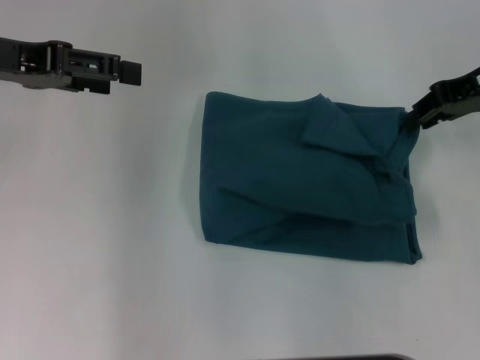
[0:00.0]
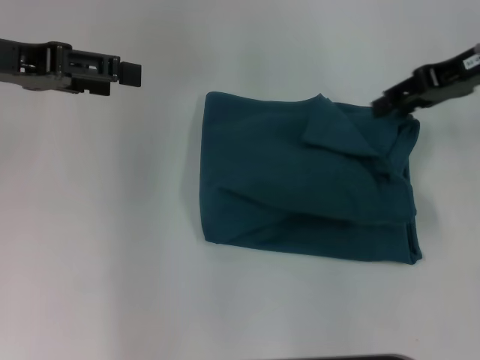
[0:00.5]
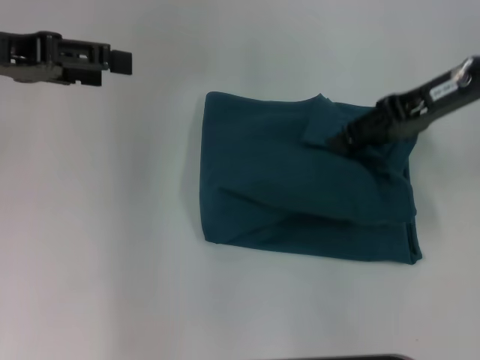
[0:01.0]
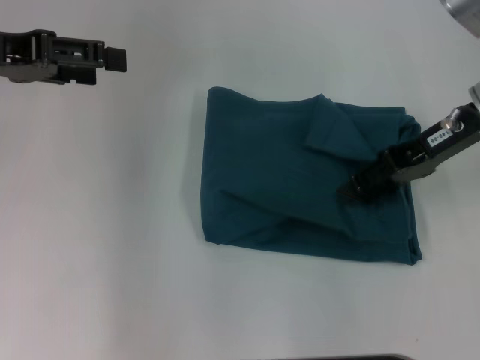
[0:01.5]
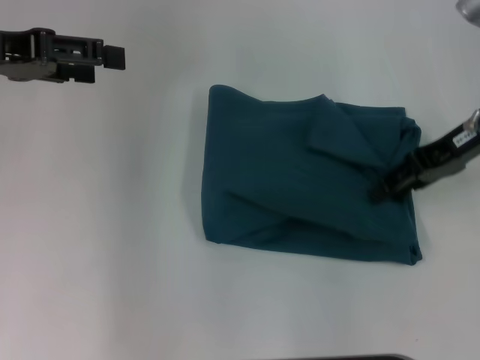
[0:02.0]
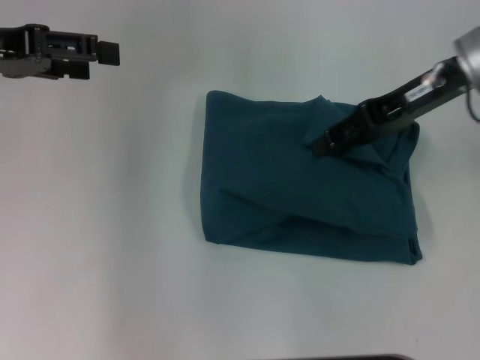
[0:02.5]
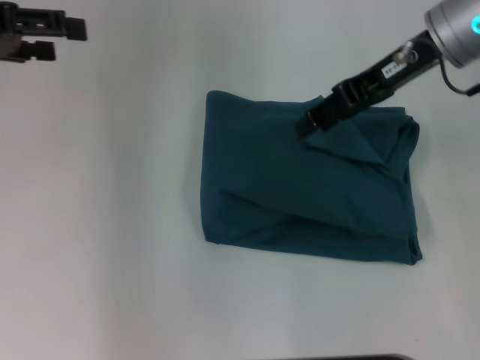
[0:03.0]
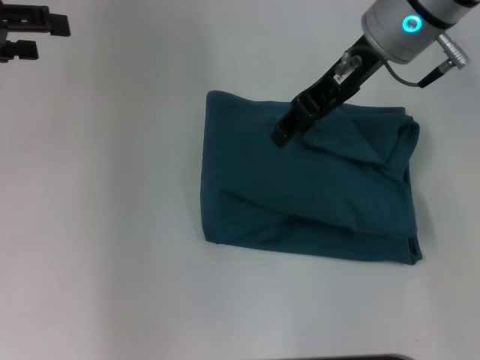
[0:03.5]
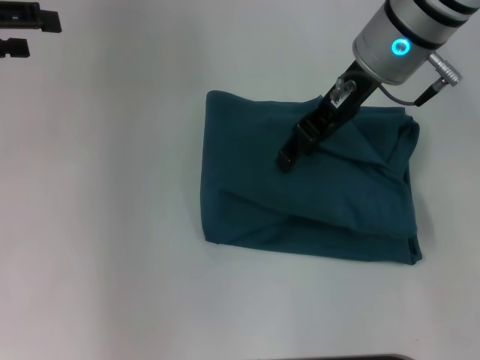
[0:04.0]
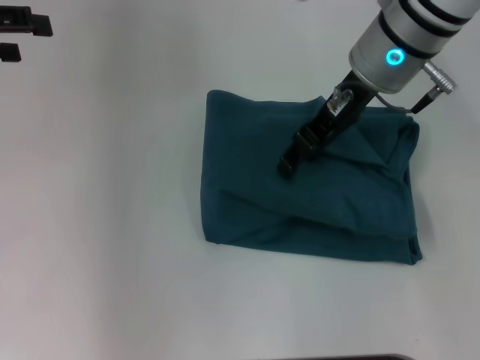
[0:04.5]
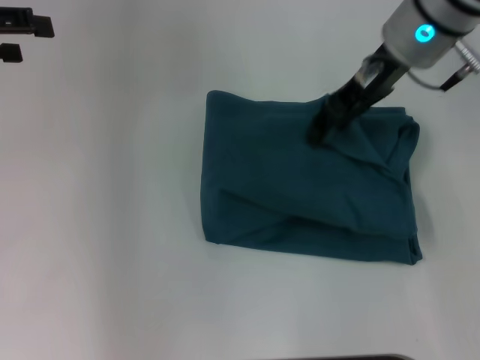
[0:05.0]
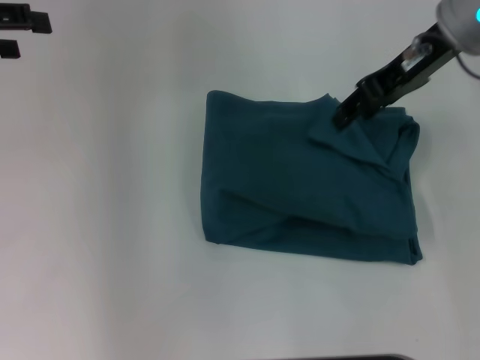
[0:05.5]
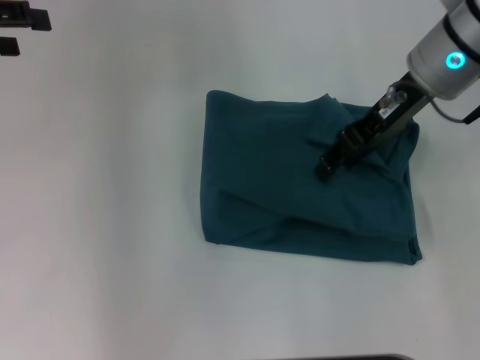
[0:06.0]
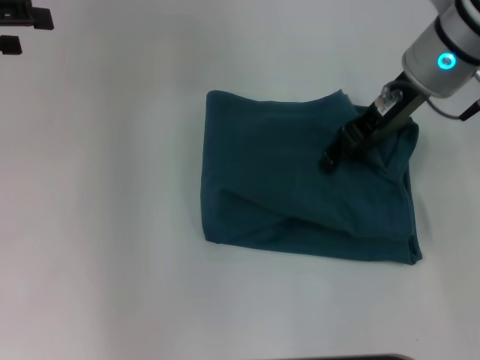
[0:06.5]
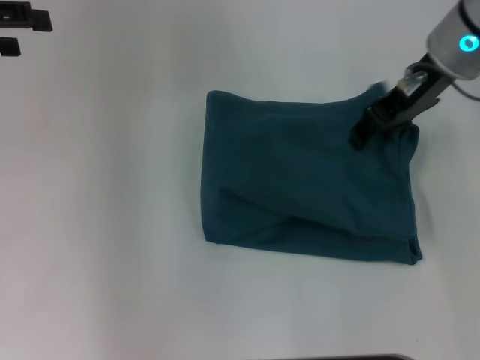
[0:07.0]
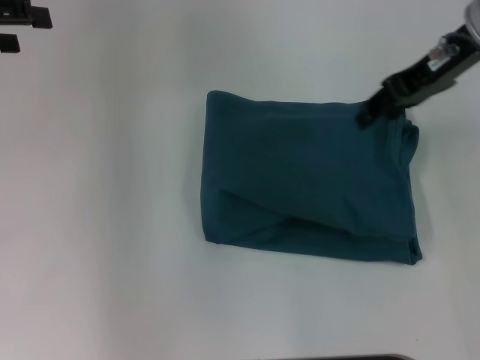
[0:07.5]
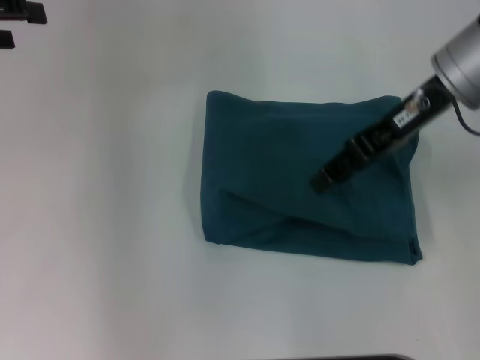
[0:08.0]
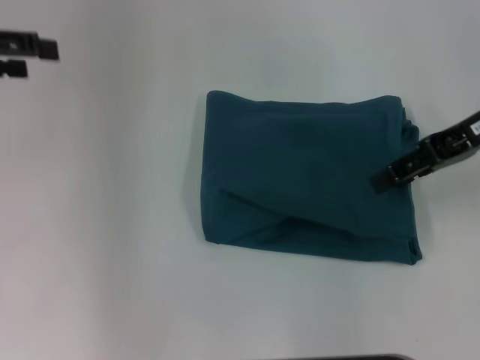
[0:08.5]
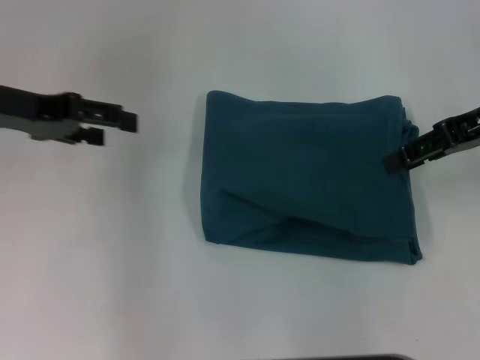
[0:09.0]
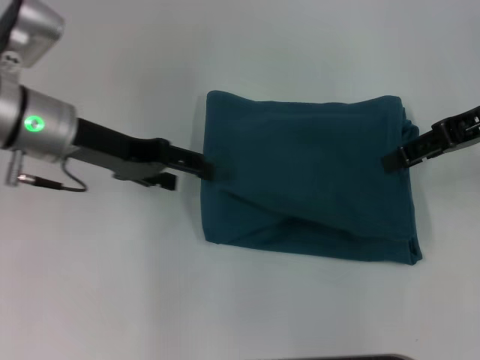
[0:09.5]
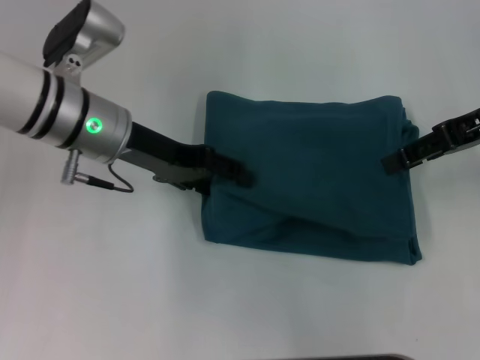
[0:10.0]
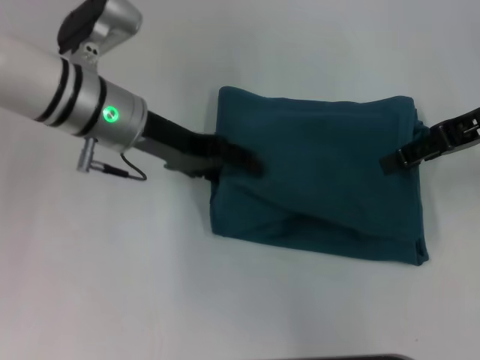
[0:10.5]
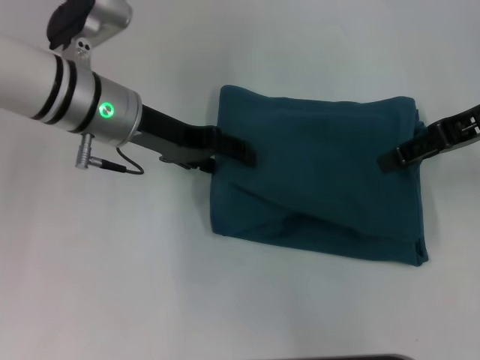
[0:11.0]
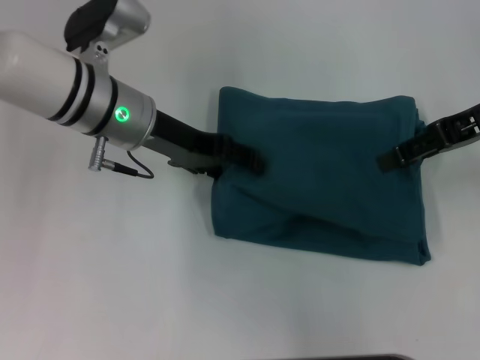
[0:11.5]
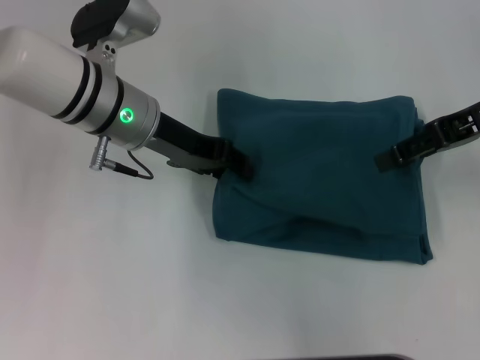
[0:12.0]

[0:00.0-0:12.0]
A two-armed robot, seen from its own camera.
0:00.0 to 0:02.0: The right gripper opens up.
0:02.0 to 0:04.0: The right gripper heads to the left, covering roughly 15 cm.
0:06.0 to 0:08.0: The grippers move only a little.
0:08.0 to 0:10.0: The right gripper moves to the right, about 10 cm, while the left gripper goes roughly 20 cm to the right and downward.
0:10.0 to 0:12.0: There are only small adjustments of the grippers.

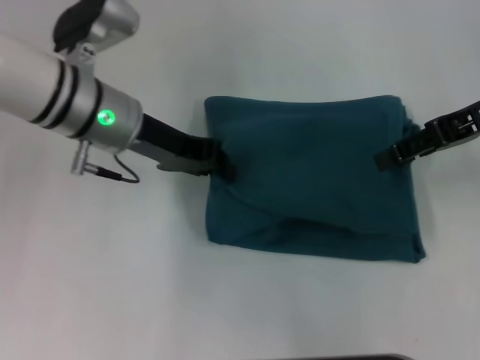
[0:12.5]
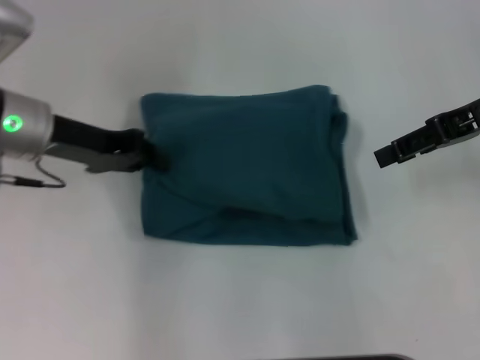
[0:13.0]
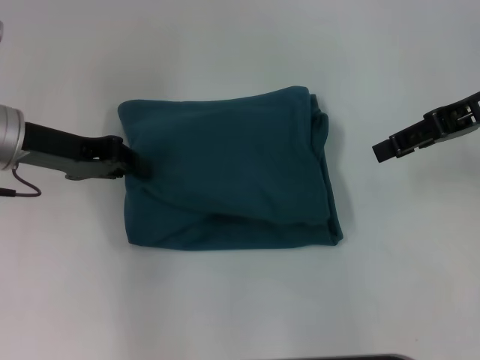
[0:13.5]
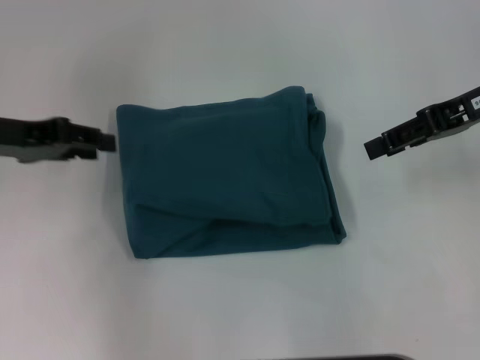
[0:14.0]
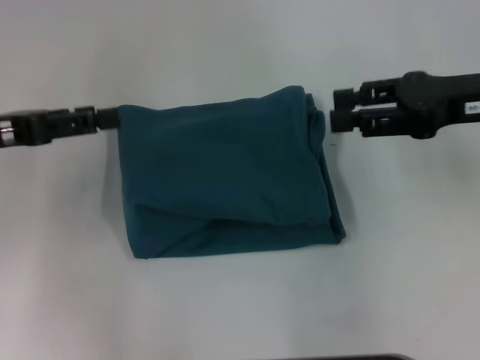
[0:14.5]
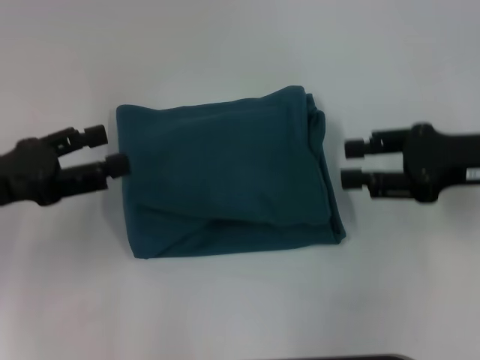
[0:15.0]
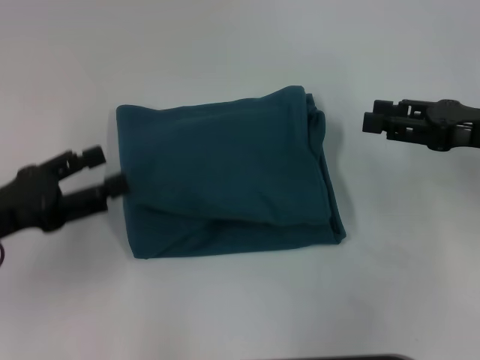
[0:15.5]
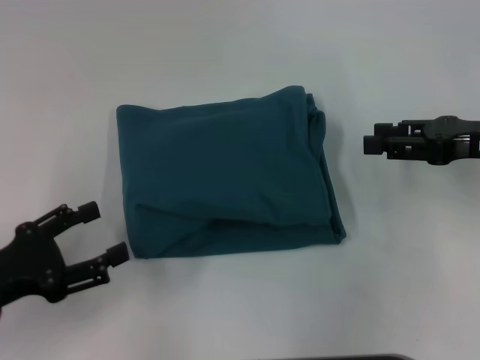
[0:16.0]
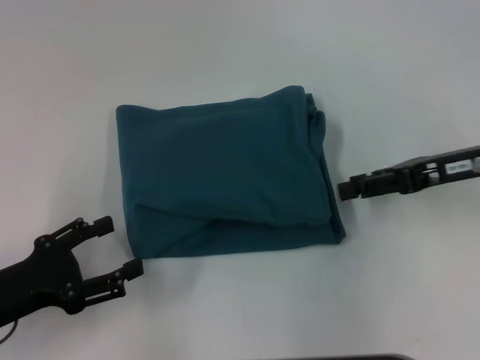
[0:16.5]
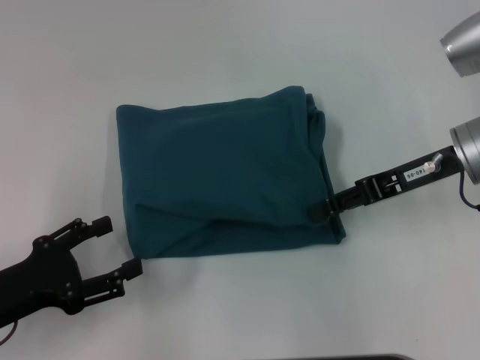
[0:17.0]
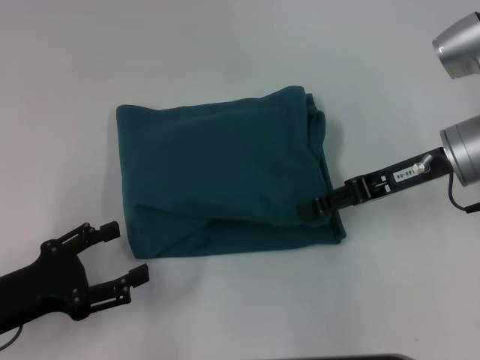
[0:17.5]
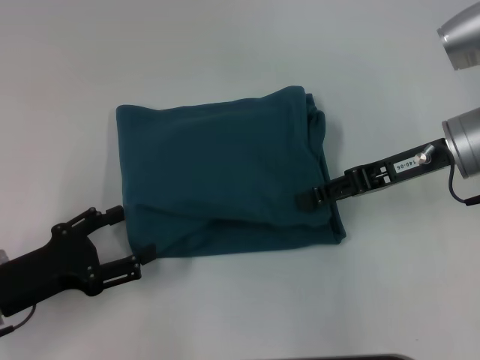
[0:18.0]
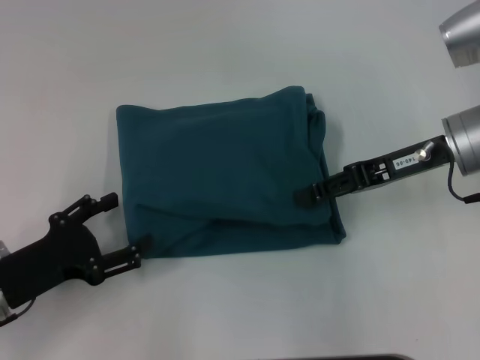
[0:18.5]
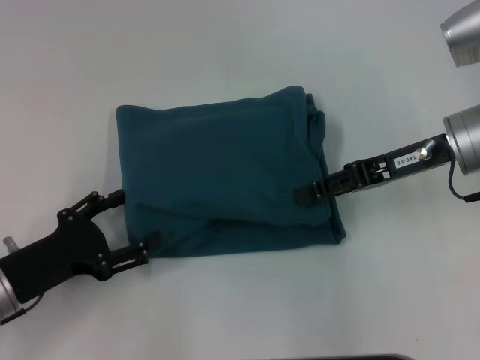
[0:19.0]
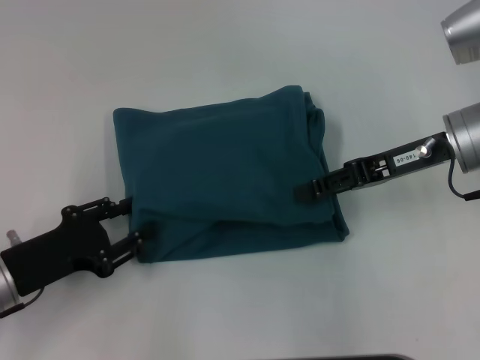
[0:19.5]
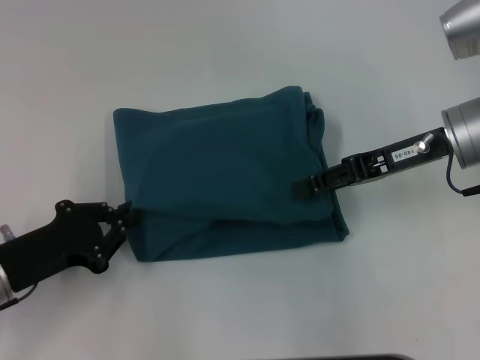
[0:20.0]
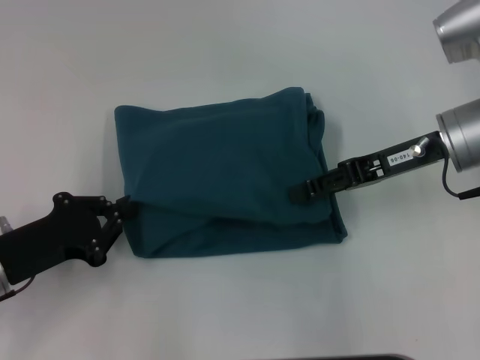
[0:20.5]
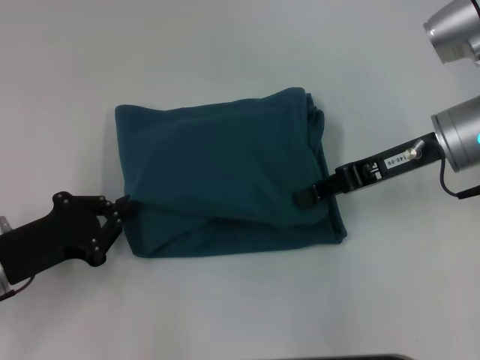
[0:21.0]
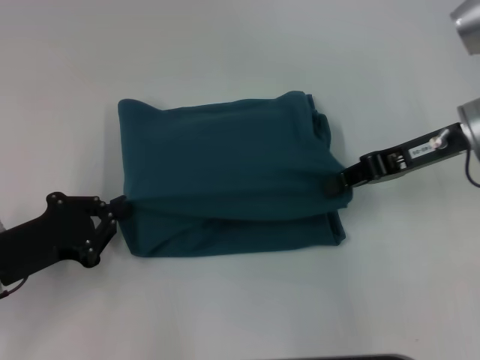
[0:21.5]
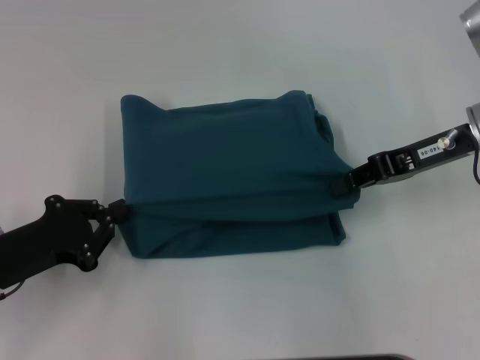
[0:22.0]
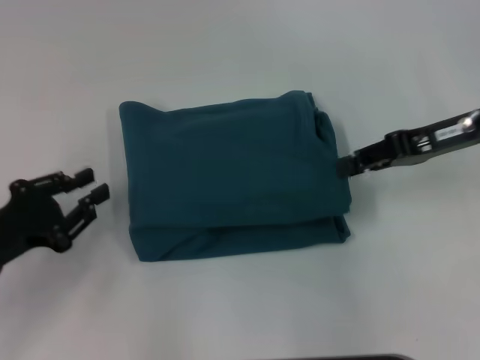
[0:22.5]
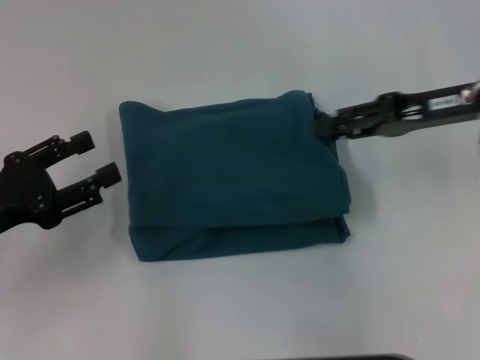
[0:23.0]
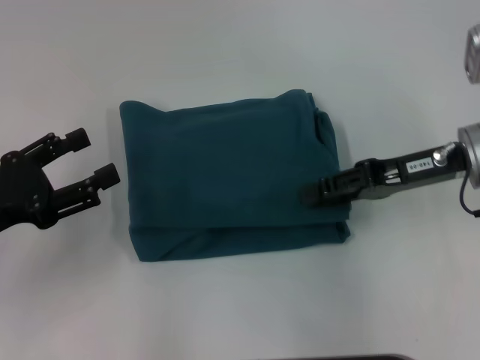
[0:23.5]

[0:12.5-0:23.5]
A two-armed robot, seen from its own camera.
0:12.5 to 0:14.5: The left gripper is displaced to the left and backward by approximately 15 cm, and opens its fingers.
0:14.5 to 0:16.0: The right gripper shifts about 5 cm downward, while the left gripper goes about 15 cm backward and downward.
0:16.0 to 0:18.0: The right gripper heads to the left, covering about 5 cm.
0:18.0 to 0:20.0: The left gripper closes up.
0:20.0 to 0:21.5: The right gripper closes up.
0:21.5 to 0:23.5: The right gripper opens up, while the left gripper heads upward, covering approximately 5 cm, and opens.

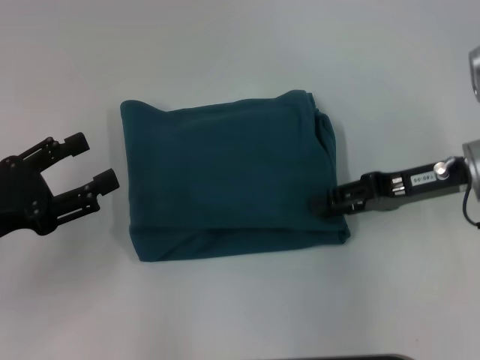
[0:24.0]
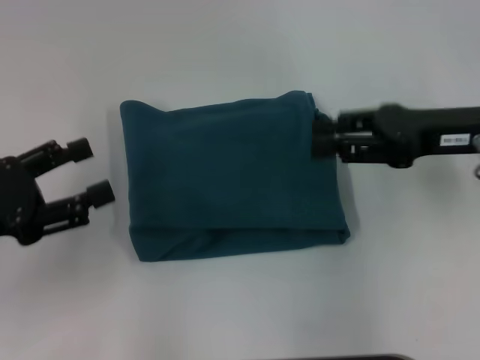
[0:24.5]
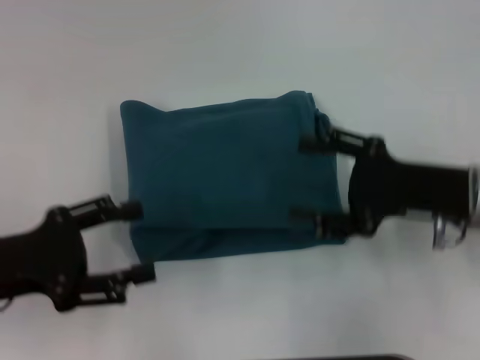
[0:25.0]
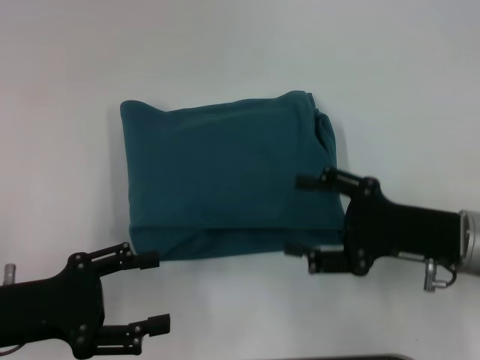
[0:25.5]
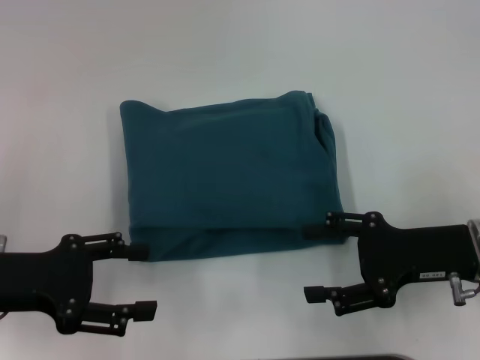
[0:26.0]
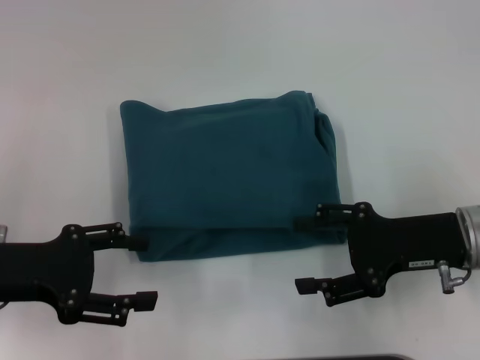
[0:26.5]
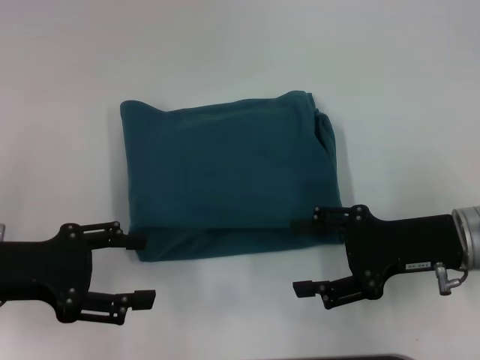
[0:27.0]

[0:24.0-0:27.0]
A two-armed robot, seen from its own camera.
0:24.0 to 0:25.5: The right gripper is displaced backward by about 10 cm, and opens its fingers.
0:25.5 to 0:27.0: The left gripper moves approximately 5 cm.
